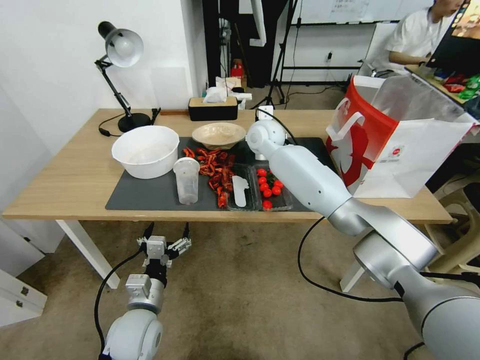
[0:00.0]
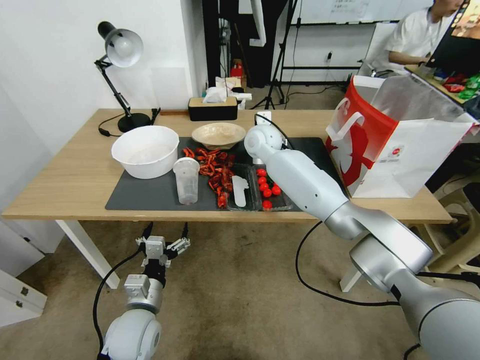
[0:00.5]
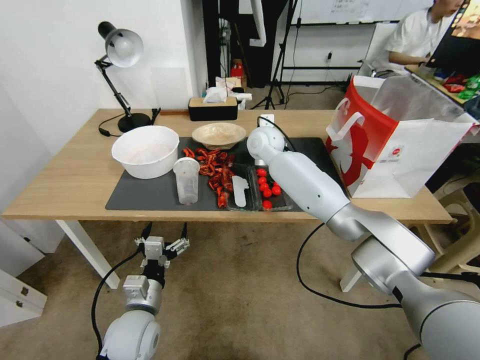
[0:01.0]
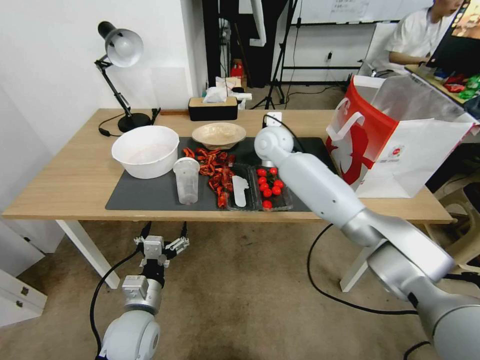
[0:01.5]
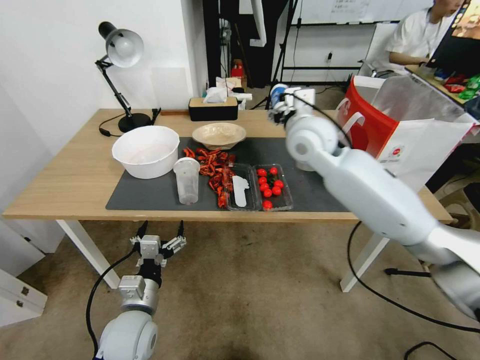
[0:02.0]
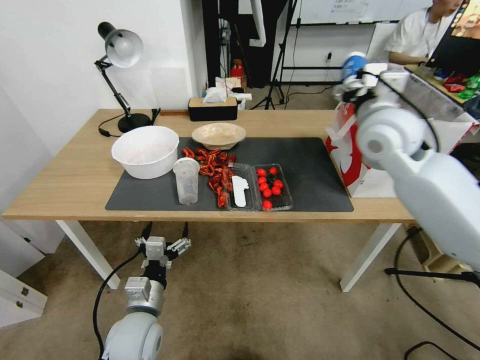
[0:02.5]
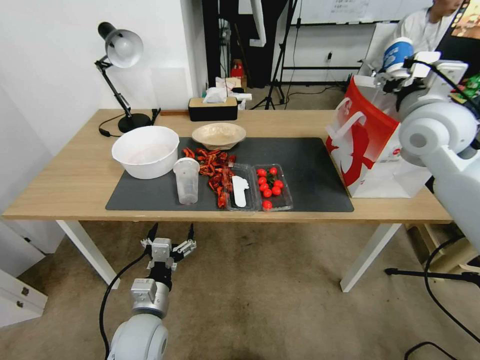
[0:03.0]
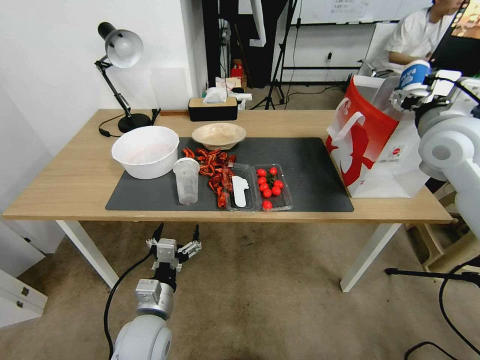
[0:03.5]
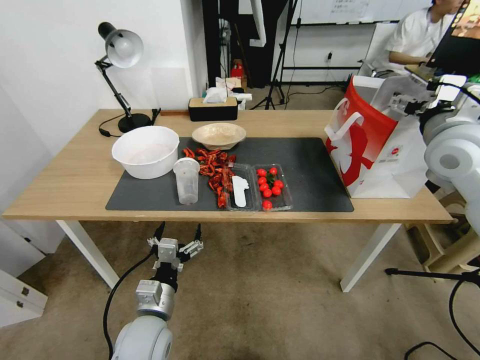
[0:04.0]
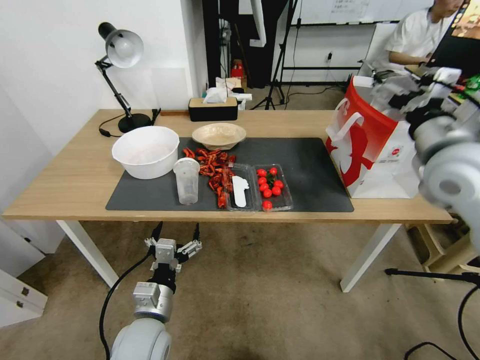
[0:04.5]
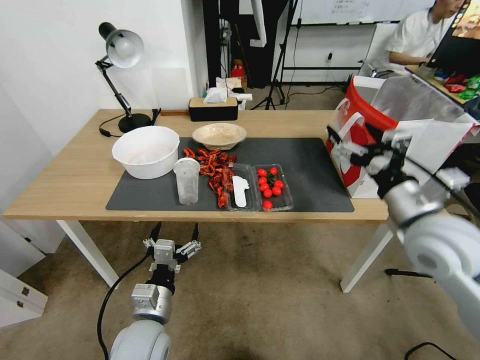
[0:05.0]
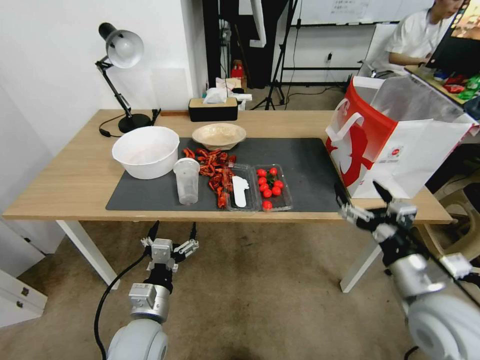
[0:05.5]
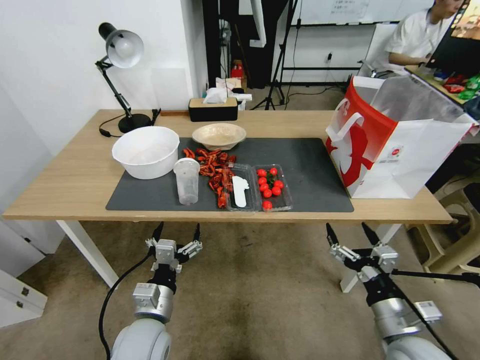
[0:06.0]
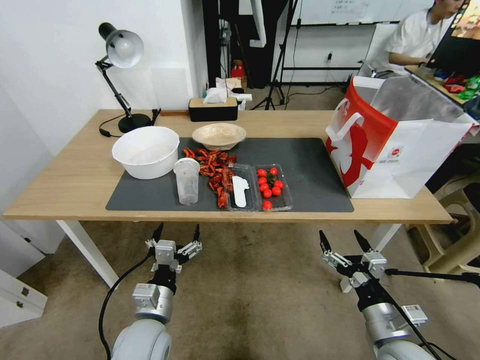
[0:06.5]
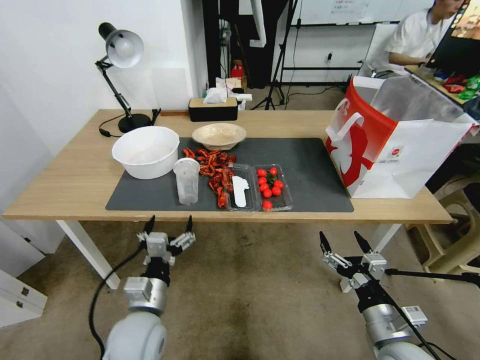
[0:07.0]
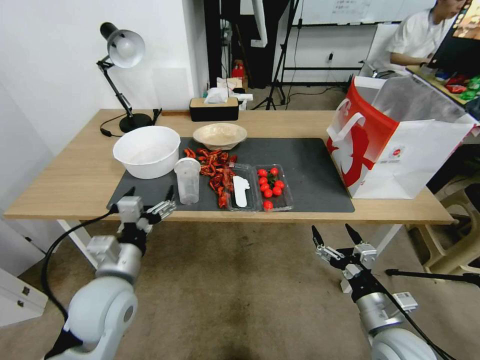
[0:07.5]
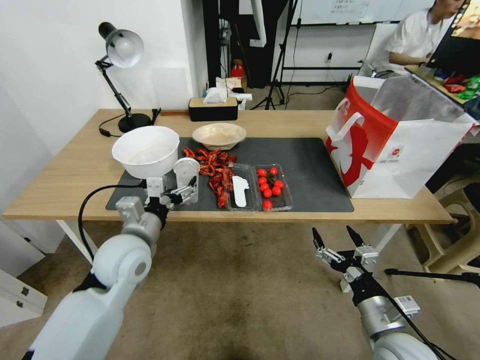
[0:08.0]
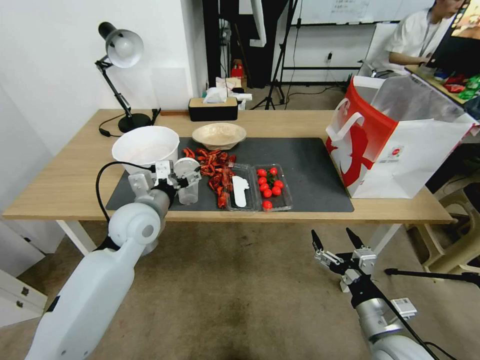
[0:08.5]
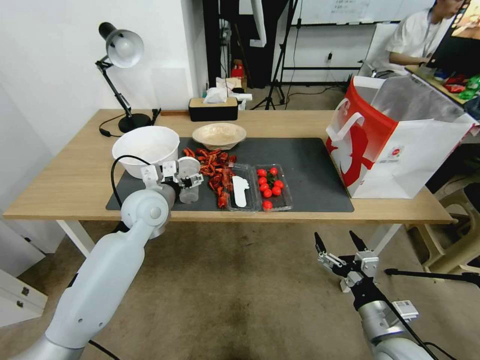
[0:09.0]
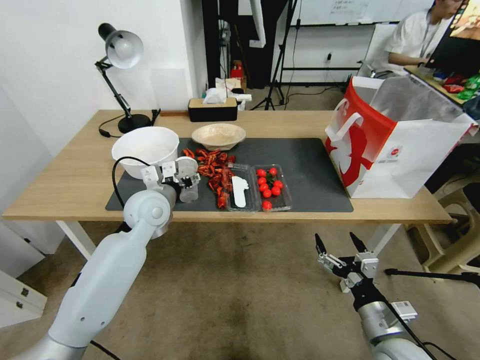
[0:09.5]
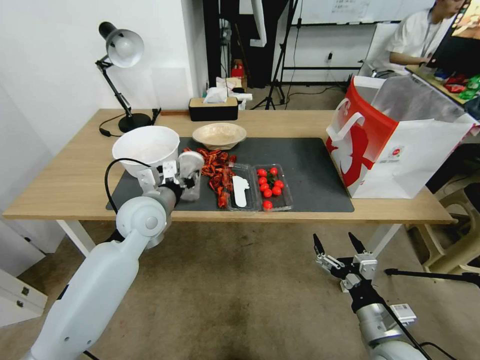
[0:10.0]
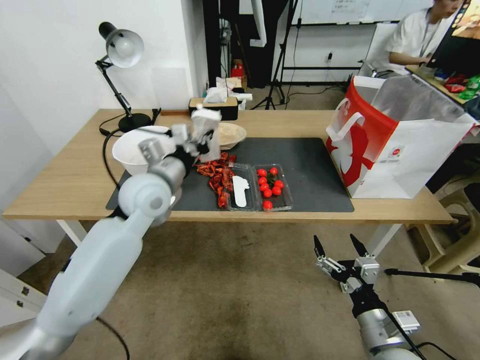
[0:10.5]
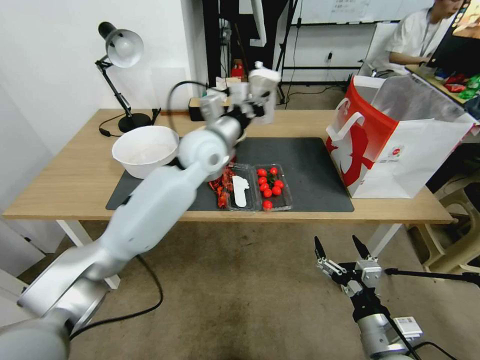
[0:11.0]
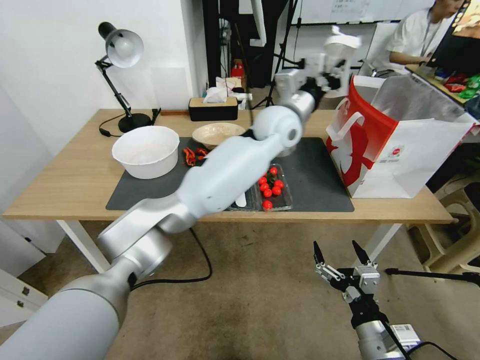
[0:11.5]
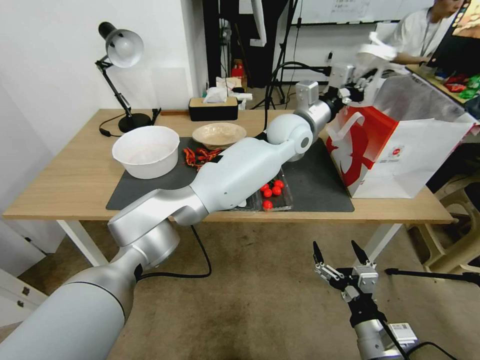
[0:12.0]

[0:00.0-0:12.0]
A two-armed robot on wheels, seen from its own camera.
0:00.0 to 0:02.0: The right gripper travels backward, to the right and upward by roughly 15 cm.
0:02.0 to 0:04.0: The right gripper heads to the right, covering roughly 20 cm.
0:04.0 to 0:06.0: The right gripper heads downward and backward, covering about 40 cm.
0:06.0 to 0:08.0: The left gripper shifts roughly 15 cm upward and forward.
0:08.0 to 0:10.0: The left gripper is displaced forward by approximately 10 cm, and closes its fingers.
0:10.0 to 0:12.0: The left gripper travels to the right and forward by about 35 cm.

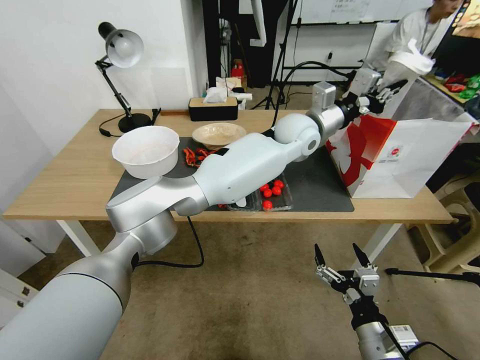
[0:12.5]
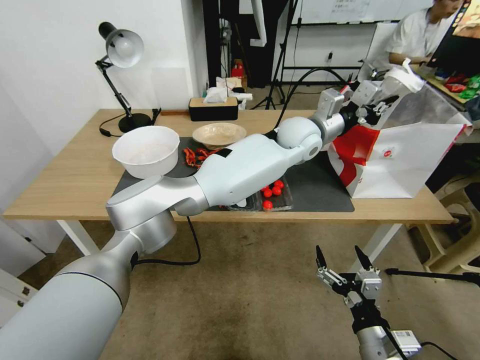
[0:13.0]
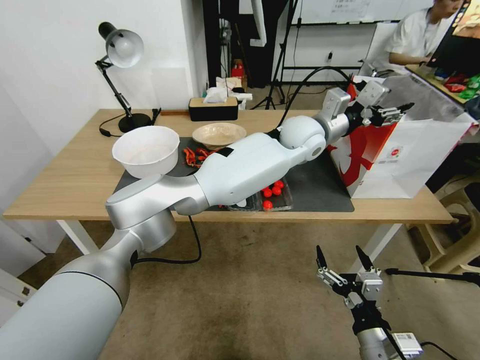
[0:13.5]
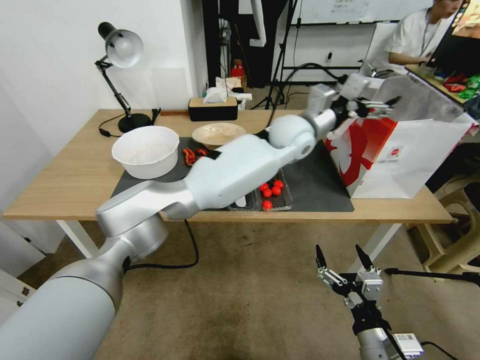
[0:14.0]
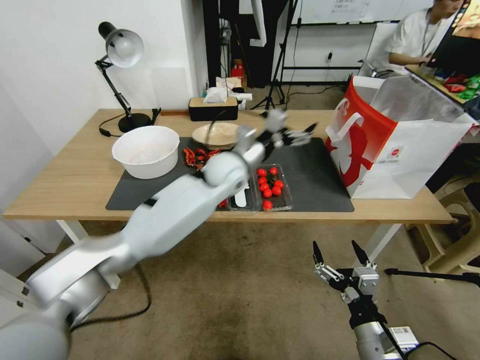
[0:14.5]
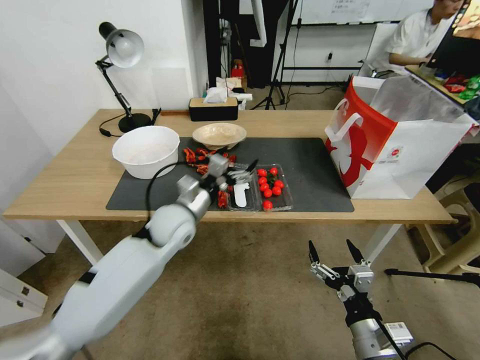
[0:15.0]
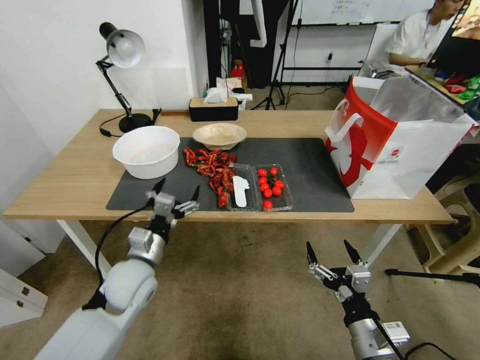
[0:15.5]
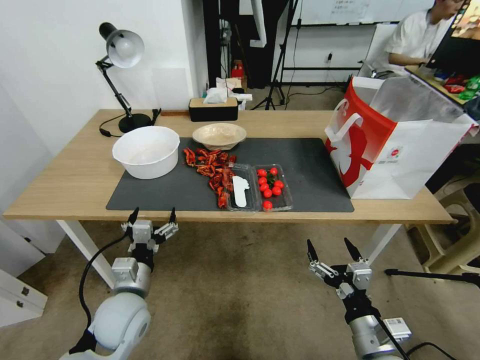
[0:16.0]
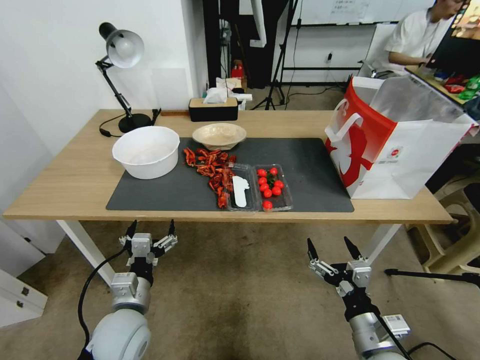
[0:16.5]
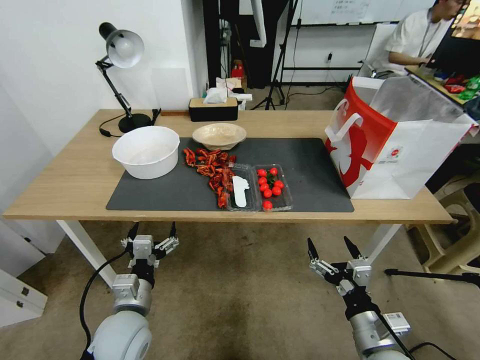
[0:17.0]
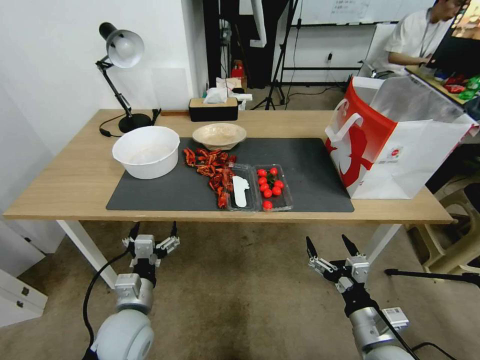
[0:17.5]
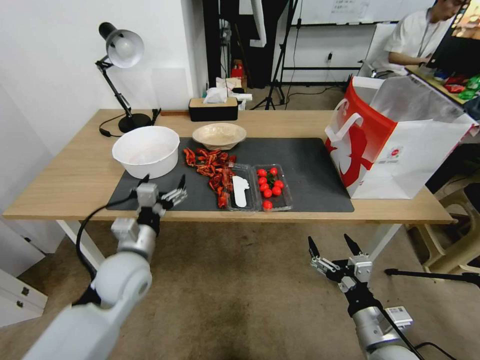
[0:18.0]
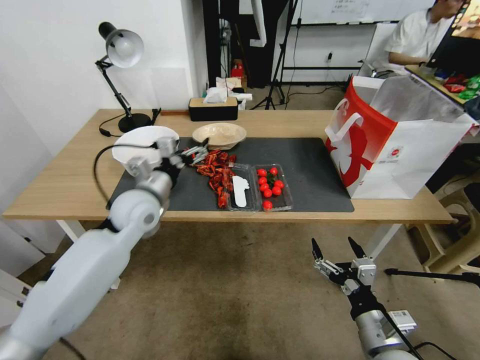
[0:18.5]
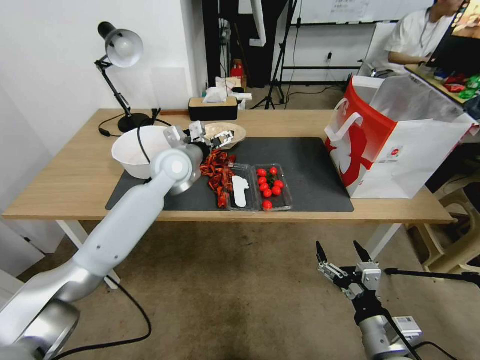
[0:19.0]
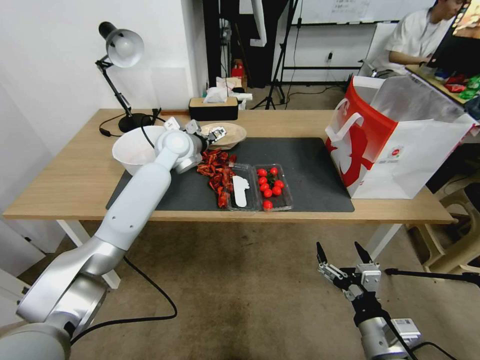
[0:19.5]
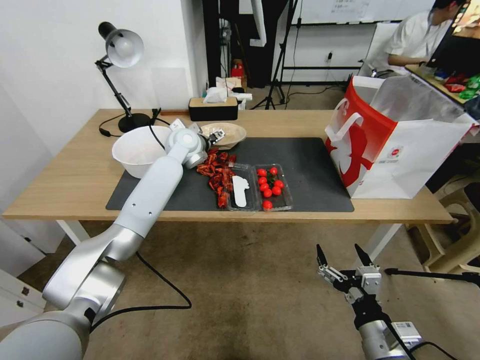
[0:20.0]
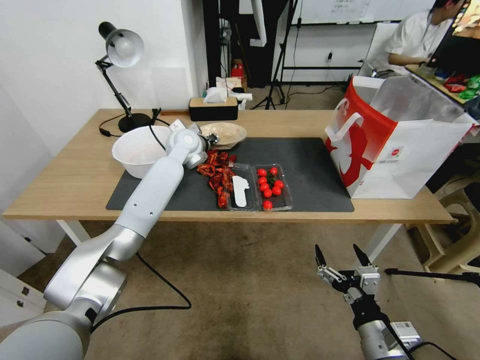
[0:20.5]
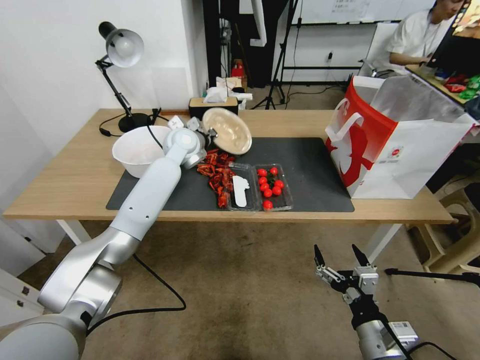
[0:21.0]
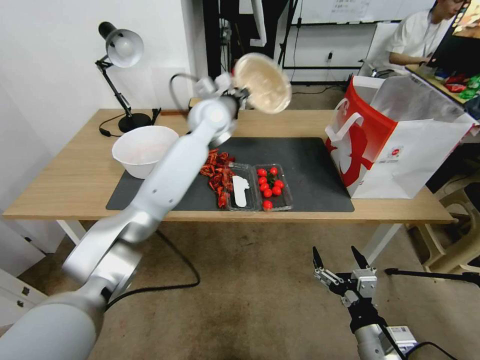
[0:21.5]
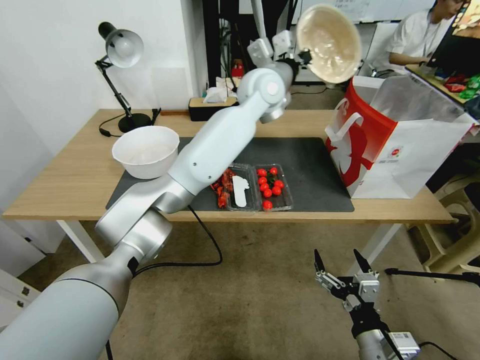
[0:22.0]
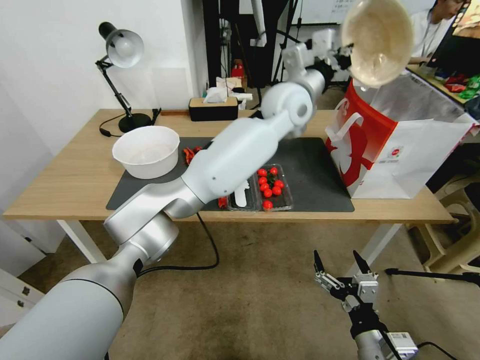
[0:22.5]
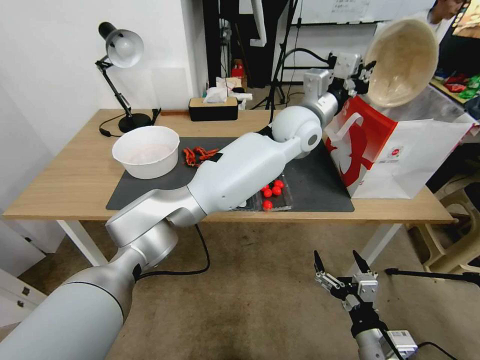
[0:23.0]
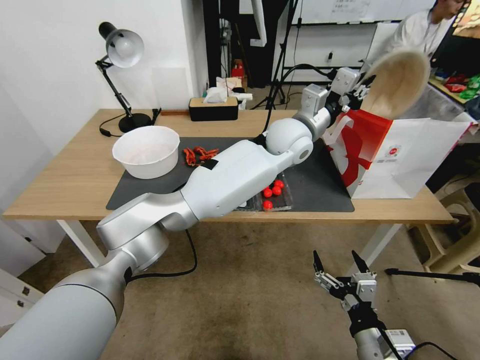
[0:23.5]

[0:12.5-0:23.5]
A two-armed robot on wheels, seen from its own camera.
0:12.5 to 0:14.5: The left gripper shifts approximately 20 cm to the left and downward, and opens up.
0:14.5 to 0:16.0: The left gripper travels backward, to the left and downward by approximately 35 cm.
0:16.0 to 0:18.0: The left gripper is displaced upward and forward by approximately 10 cm.
0:18.0 to 0:20.0: The left gripper is displaced forward by roughly 30 cm.
0:20.0 to 0:21.5: The left gripper goes about 15 cm upward and to the right, and closes its fingers.
0:21.5 to 0:23.5: The left gripper moves to the right and backward, roughly 20 cm.

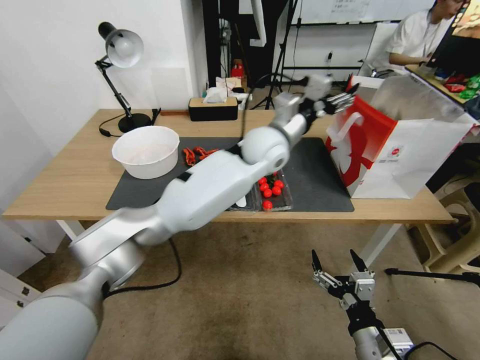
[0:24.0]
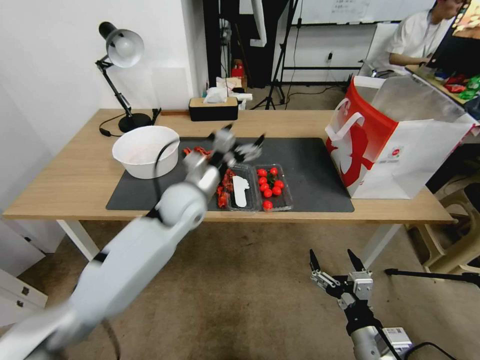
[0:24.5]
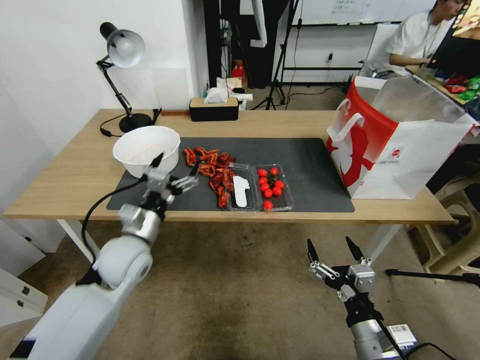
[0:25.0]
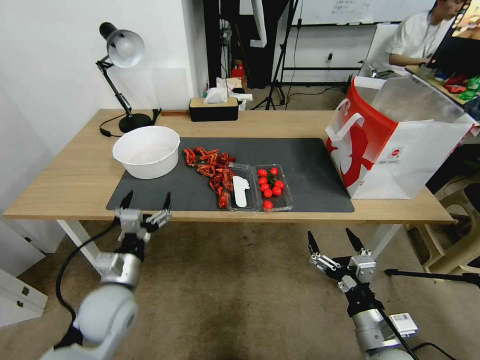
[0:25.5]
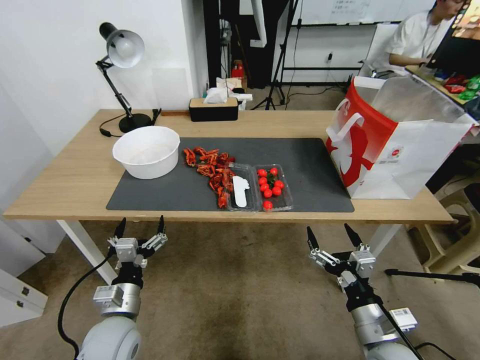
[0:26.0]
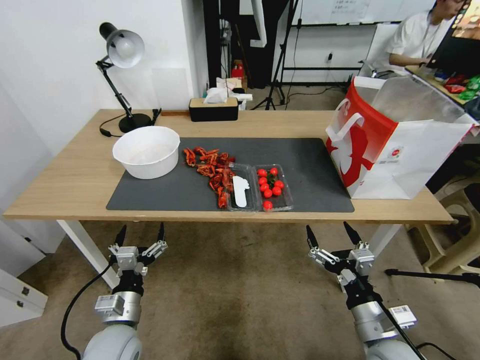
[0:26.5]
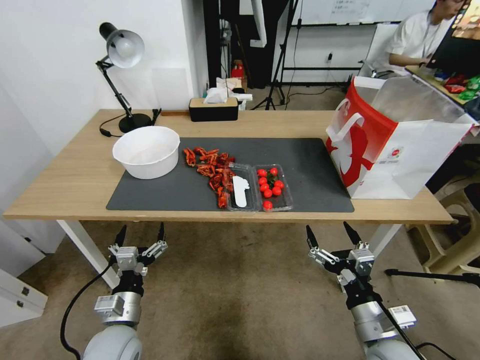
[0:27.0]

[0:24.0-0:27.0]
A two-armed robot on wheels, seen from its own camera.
0:24.0 to 0:25.5: The left gripper moves to the left, backward and downward, roughly 40 cm.
0:25.5 to 0:27.0: The left gripper goes approximately 5 cm downward.
